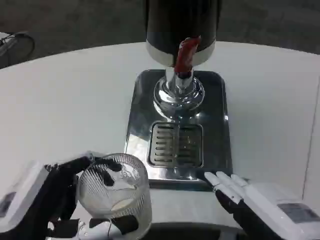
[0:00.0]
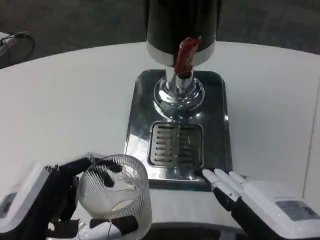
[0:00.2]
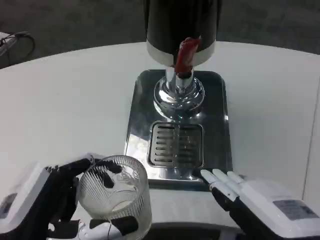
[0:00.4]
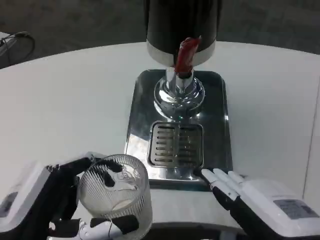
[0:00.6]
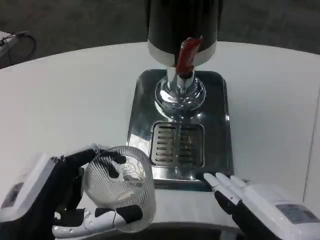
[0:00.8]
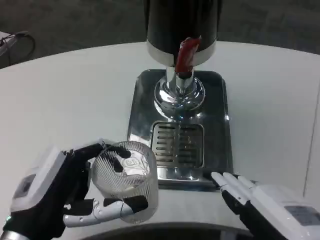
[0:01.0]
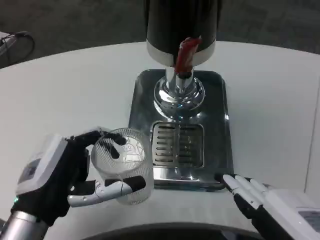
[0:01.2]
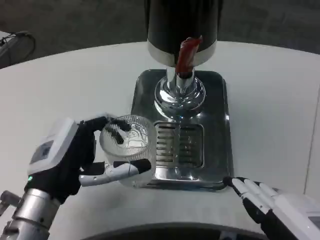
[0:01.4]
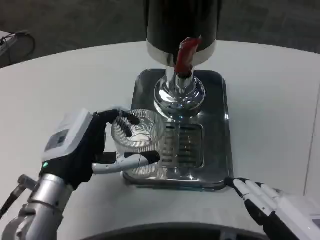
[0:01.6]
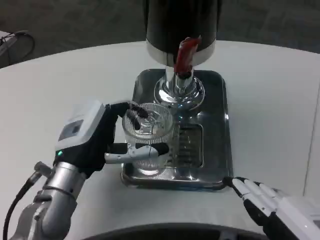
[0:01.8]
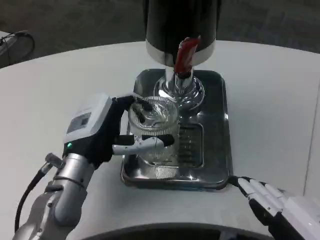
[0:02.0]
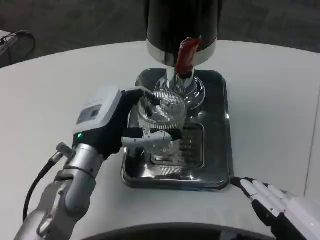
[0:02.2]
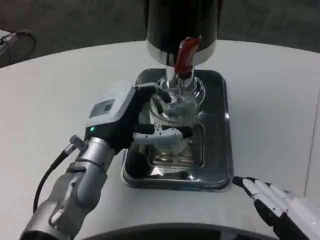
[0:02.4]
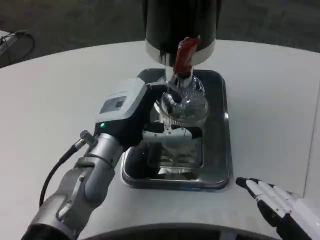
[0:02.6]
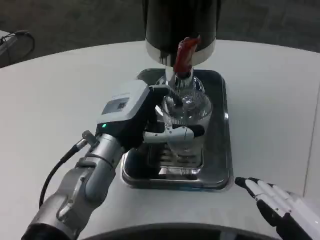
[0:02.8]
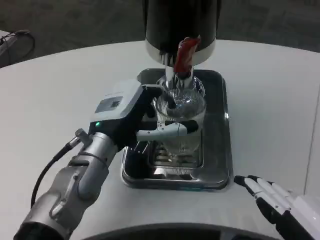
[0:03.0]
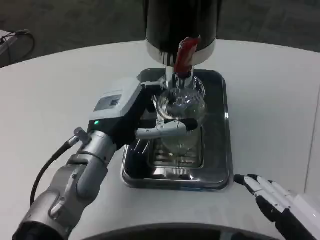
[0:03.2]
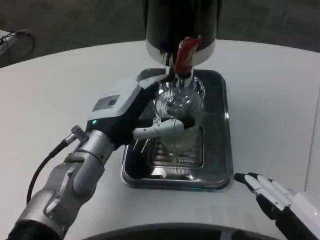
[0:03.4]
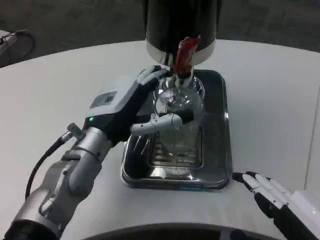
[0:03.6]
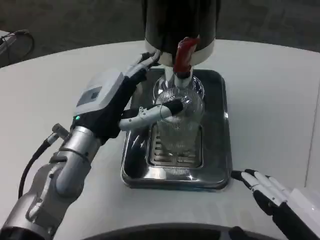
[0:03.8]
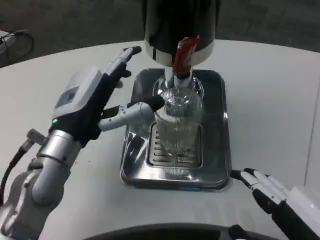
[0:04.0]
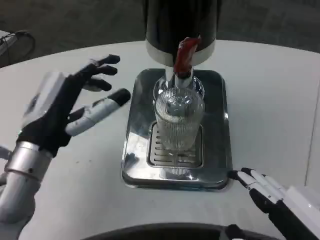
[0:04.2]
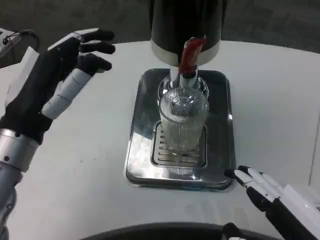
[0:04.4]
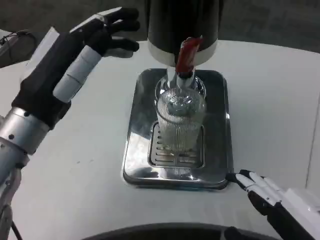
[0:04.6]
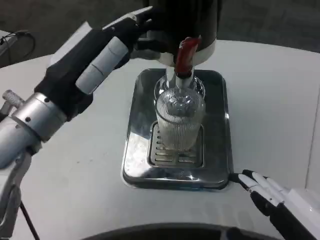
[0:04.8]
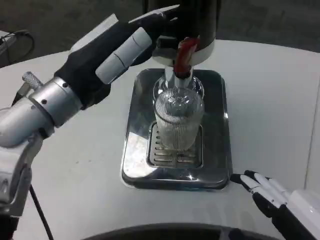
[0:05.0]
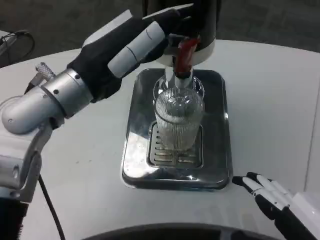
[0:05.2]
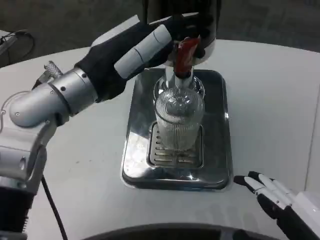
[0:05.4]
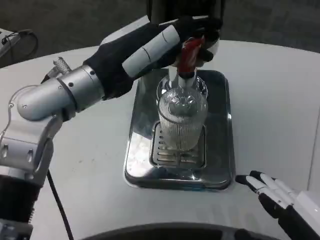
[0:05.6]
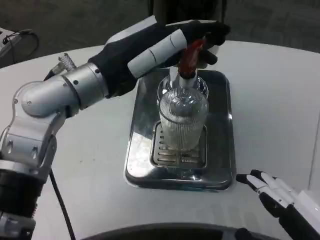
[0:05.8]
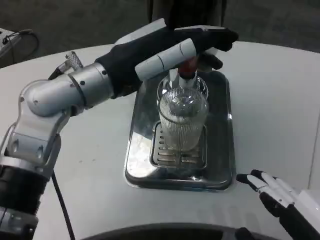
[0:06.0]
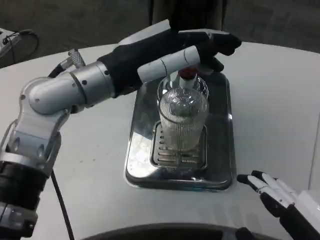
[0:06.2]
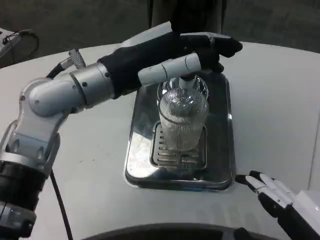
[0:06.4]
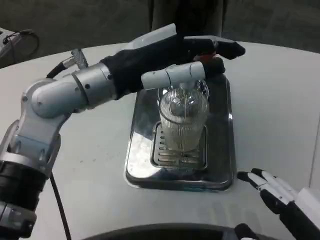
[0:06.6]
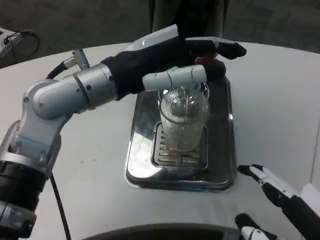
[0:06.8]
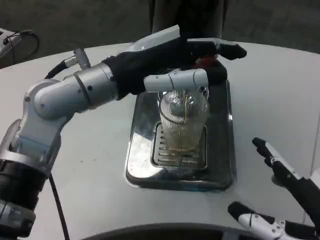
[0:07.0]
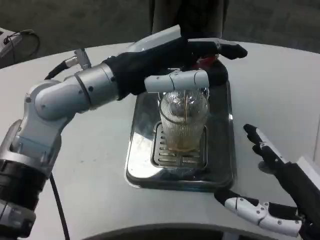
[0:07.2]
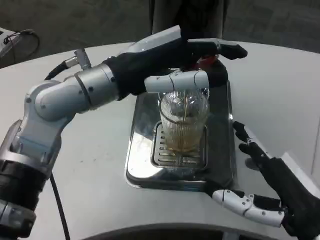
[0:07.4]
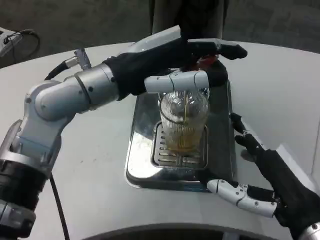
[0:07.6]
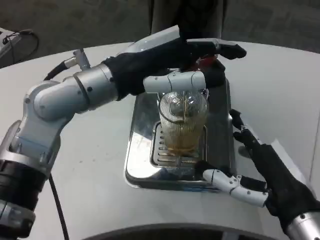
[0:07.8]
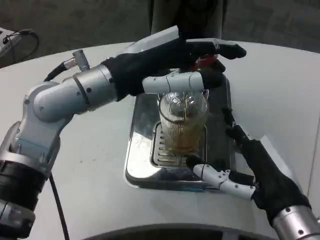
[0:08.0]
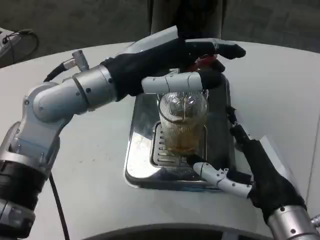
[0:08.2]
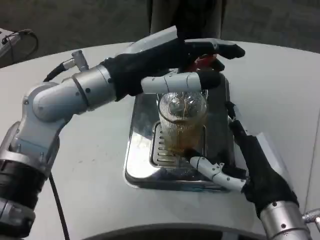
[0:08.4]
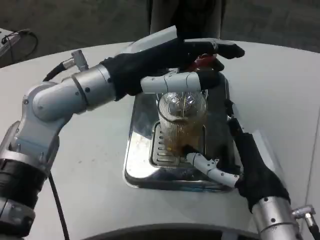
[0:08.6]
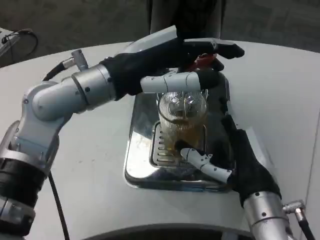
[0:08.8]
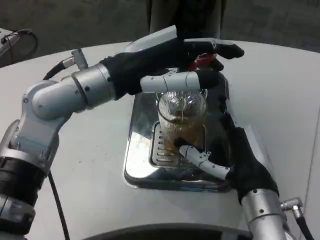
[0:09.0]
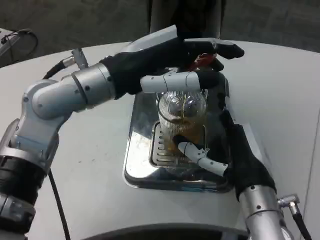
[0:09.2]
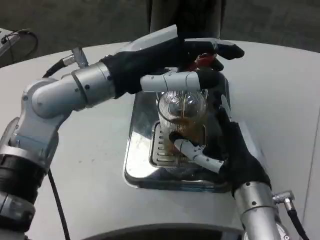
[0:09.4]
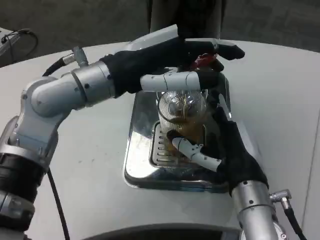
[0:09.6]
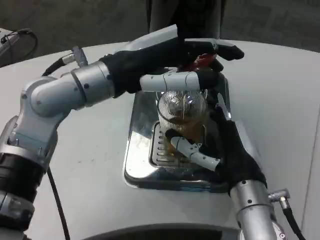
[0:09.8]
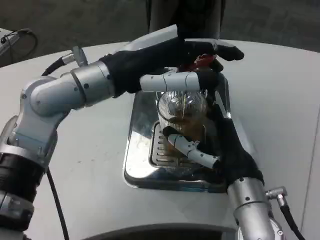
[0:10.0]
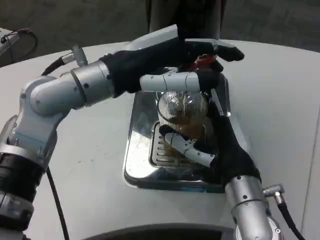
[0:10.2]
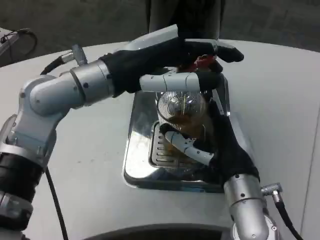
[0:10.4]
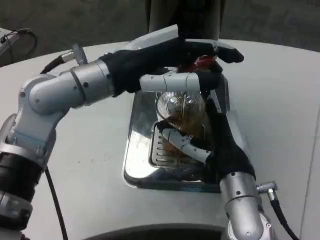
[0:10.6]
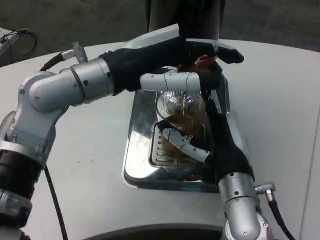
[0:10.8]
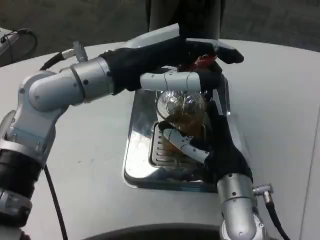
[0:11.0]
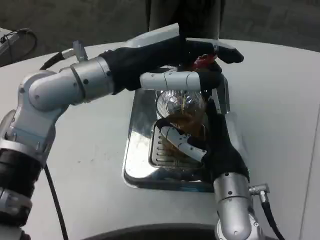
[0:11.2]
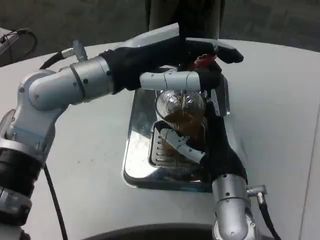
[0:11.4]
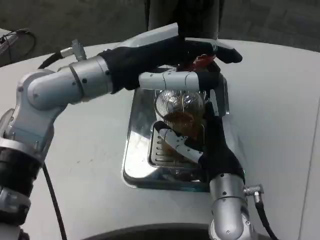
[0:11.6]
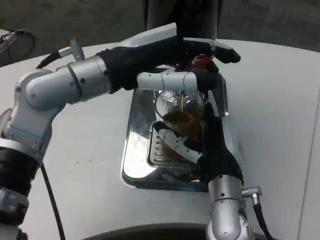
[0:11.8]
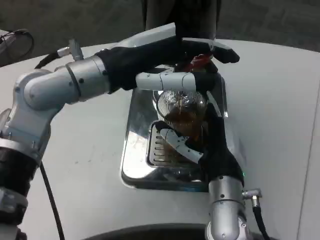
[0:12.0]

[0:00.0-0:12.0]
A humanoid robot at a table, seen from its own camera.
Task of the whole recording: Grasp the cup under the faucet to collect the drink, then remove the cup.
0:00.0 to 0:01.6: The left hand goes some 10 cm forward.
0:01.6 to 0:03.0: The left hand heads forward, covering about 5 cm.
0:03.0 to 0:04.4: The left hand heads to the left and backward, covering approximately 10 cm.
0:04.4 to 0:06.0: The left hand travels upward, forward and to the right by some 10 cm.
0:06.0 to 0:07.6: The right hand goes approximately 10 cm forward.
0:07.6 to 0:09.0: The right hand heads forward and to the left, covering about 10 cm.
0:09.0 to 0:10.4: The hands move only a little.

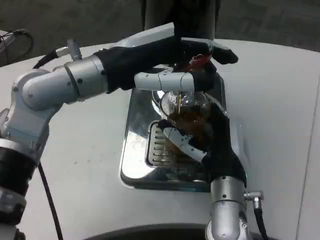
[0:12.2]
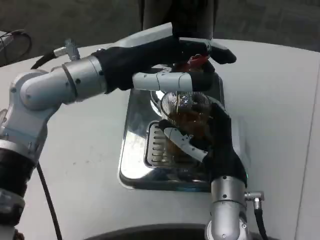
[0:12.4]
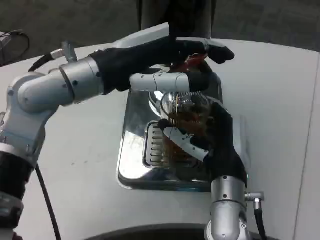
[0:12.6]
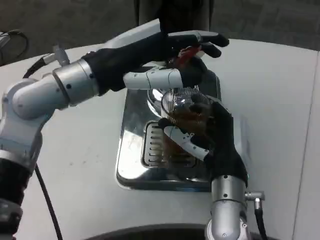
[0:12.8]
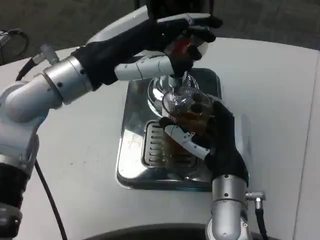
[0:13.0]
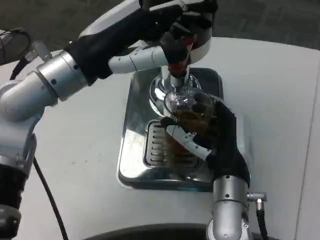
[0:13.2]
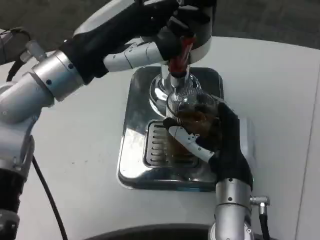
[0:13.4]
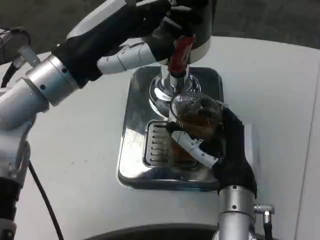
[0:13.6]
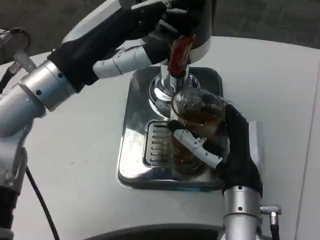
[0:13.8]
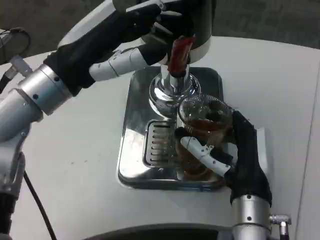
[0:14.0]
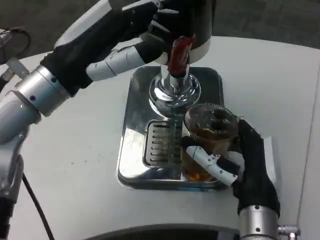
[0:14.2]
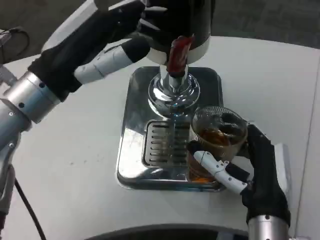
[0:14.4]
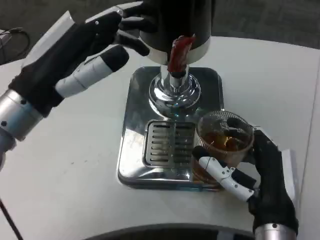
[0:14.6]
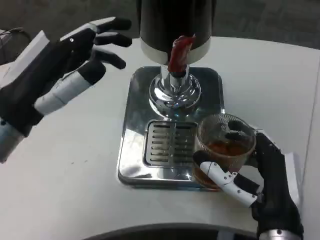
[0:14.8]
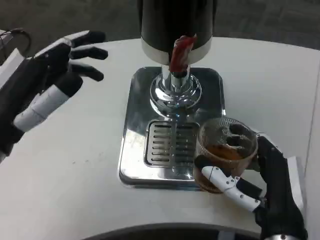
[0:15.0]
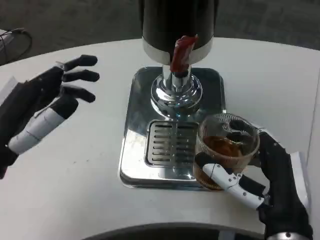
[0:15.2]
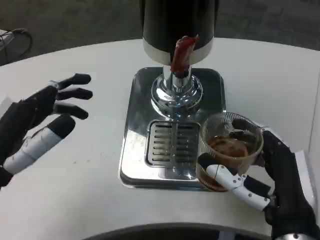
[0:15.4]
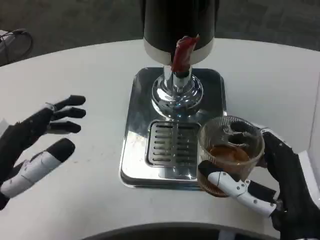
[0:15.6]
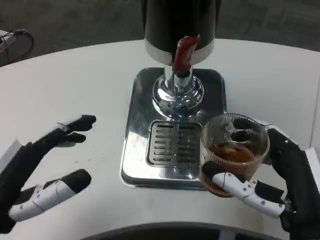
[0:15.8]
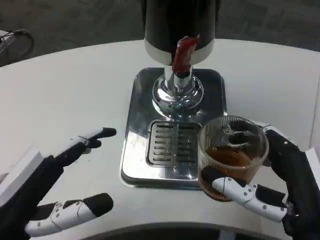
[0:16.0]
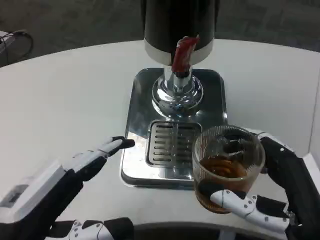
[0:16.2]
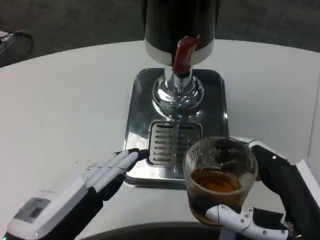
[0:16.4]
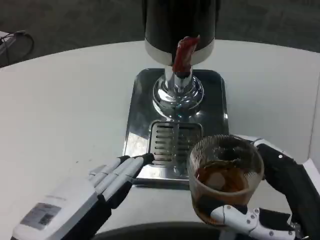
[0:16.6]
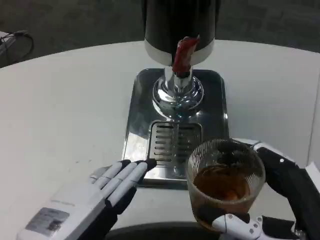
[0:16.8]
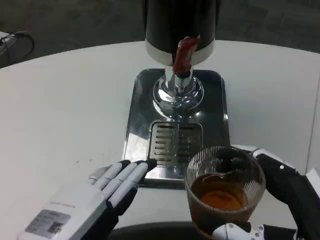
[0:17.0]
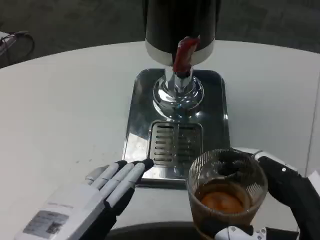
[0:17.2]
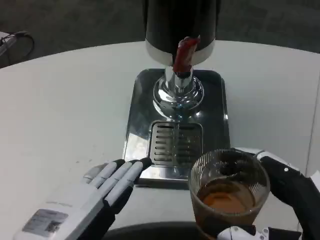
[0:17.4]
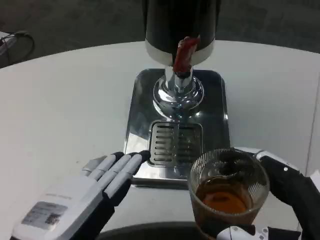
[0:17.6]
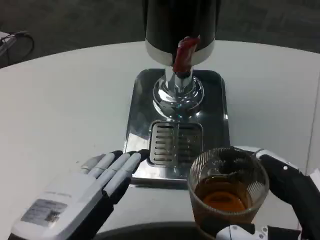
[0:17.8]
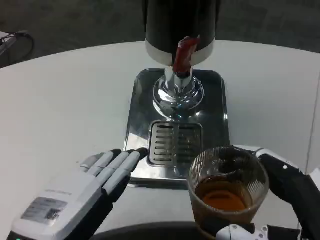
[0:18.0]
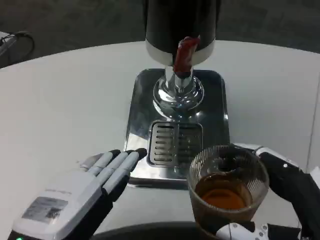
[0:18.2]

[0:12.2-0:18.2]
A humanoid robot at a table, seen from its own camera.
Task of the whole recording: Grasp the cup under the faucet to collect the drink, then remove the cup.
0:13.8 to 0:15.2: The right hand is displaced backward by roughly 5 cm; the left hand goes about 15 cm backward, downward and to the left.
0:15.2 to 0:16.6: The left hand heads backward and to the right, covering some 10 cm. Meanwhile the right hand heads backward, covering some 5 cm.
0:16.6 to 0:18.2: The hands move only a little.

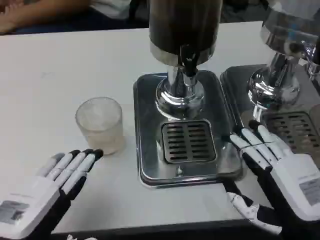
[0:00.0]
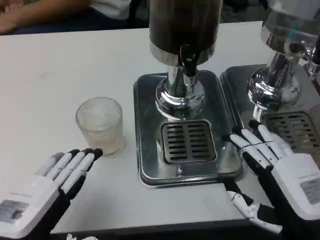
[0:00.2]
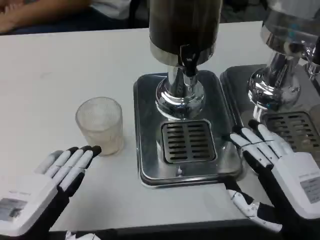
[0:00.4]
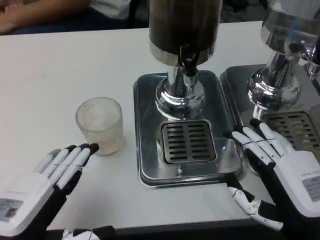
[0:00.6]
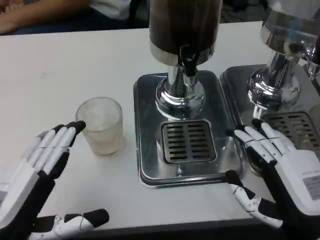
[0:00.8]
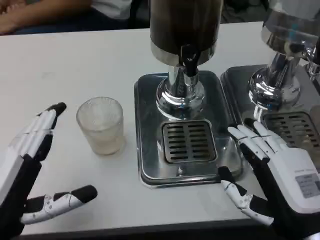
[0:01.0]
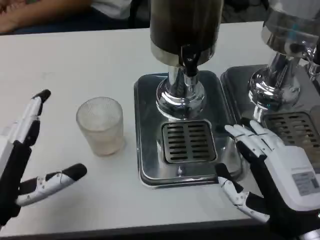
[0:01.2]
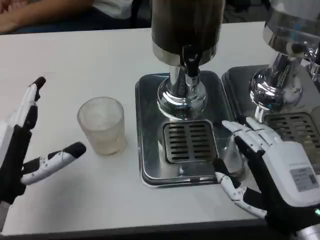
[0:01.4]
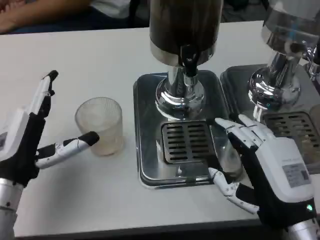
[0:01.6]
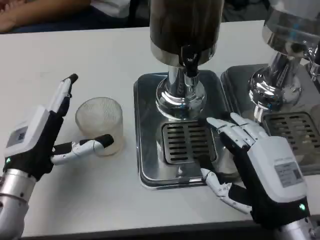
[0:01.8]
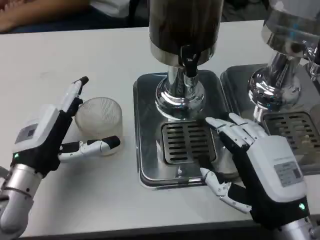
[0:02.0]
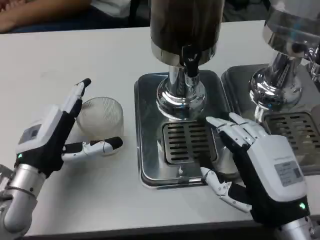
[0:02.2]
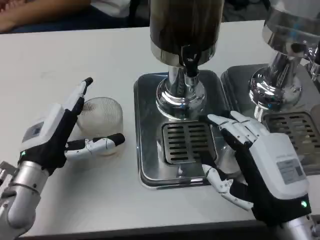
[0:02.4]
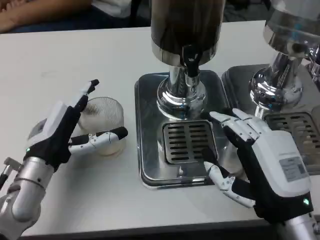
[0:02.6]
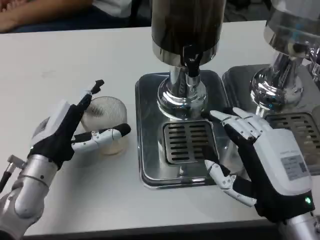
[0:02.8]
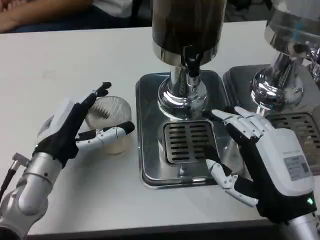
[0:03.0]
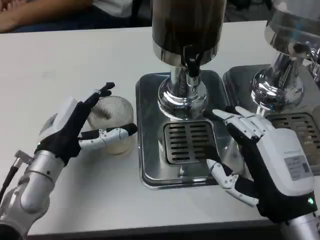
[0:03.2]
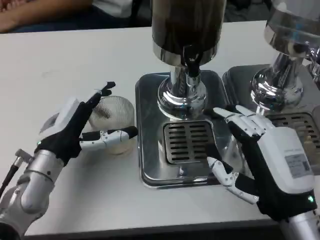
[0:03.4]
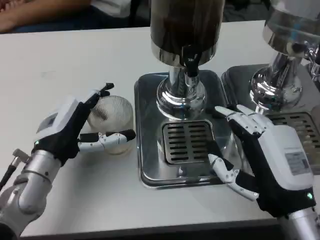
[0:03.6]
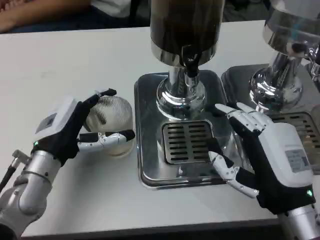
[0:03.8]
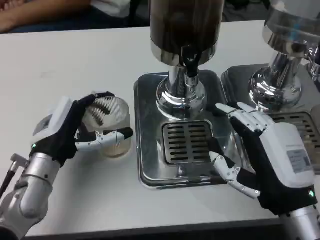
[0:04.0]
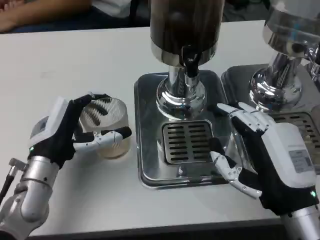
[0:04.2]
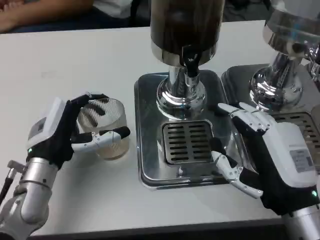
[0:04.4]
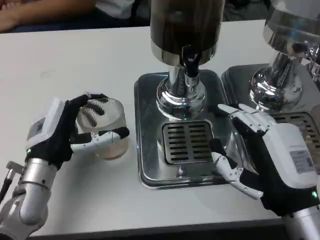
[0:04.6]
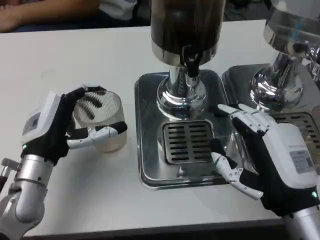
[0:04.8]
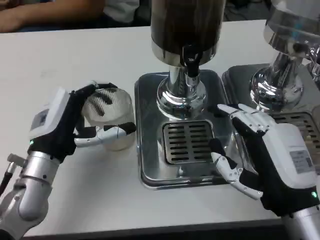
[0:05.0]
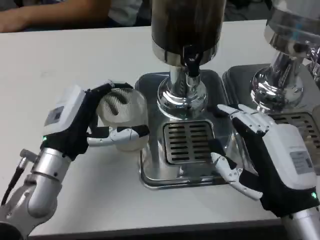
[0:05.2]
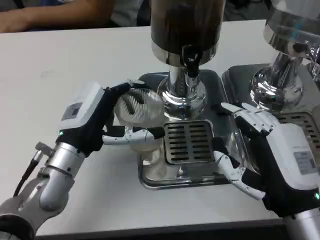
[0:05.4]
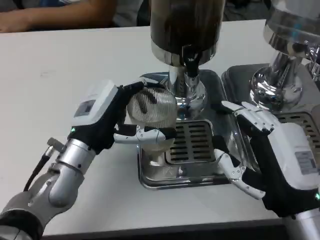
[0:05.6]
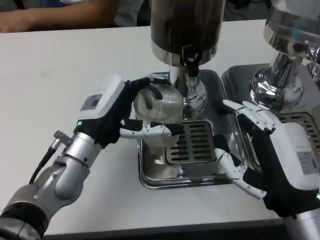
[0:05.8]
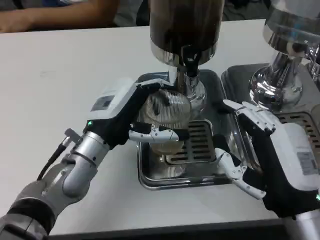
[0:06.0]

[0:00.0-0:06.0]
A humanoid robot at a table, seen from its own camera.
Task of the whole recording: Grasp the cup under the faucet to collect the drink, then remove the cup.
0:00.0 to 0:01.6: The left hand heads forward, covering roughly 10 cm.
0:01.6 to 0:03.0: The left hand moves approximately 5 cm.
0:04.4 to 0:06.0: The left hand travels to the right by approximately 5 cm.
